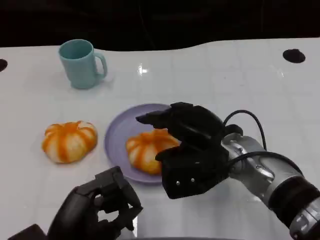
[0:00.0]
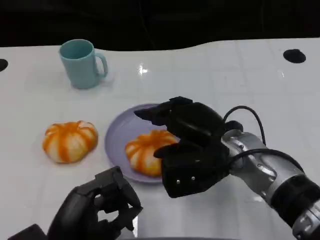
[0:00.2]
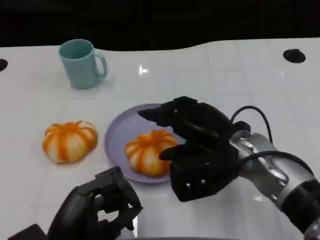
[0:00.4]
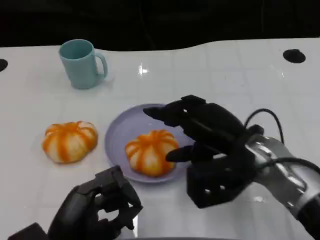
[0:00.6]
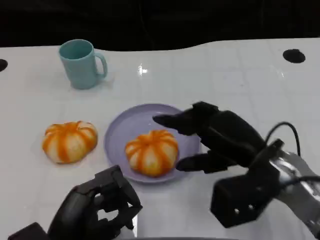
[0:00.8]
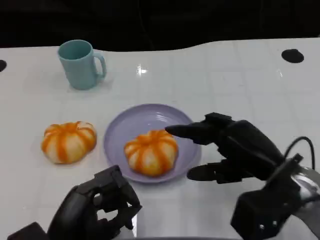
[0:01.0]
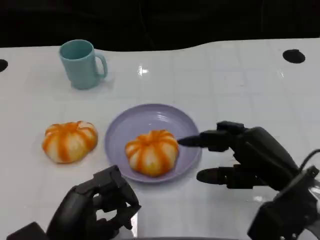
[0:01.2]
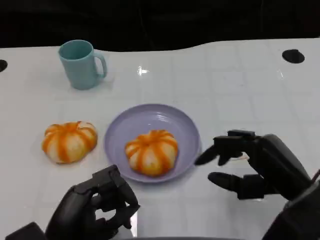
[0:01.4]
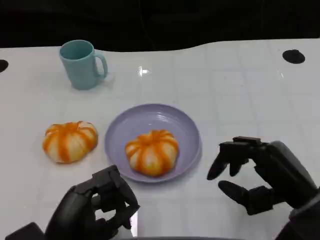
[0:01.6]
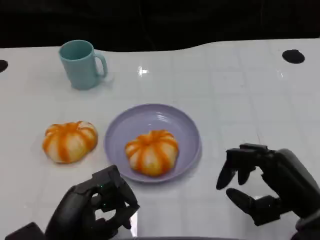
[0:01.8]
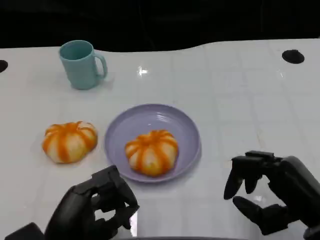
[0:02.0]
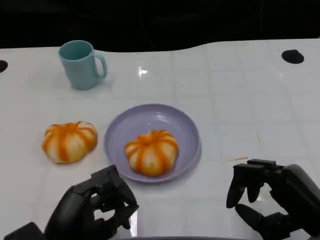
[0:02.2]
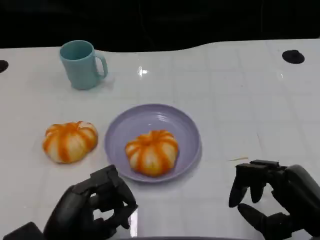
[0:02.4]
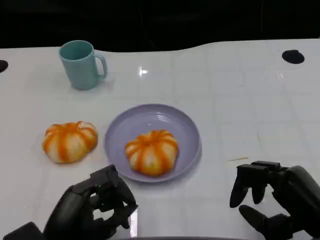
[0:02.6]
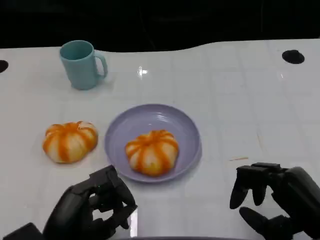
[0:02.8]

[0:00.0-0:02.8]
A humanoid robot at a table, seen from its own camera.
Task of the whole recording: Grasp the bread from the table and place it into the plate.
0:00.0 to 0:01.4: The right hand goes roughly 15 cm to the right and backward.
0:01.4 to 0:02.8: The right hand ends up about 5 cm from where it was.

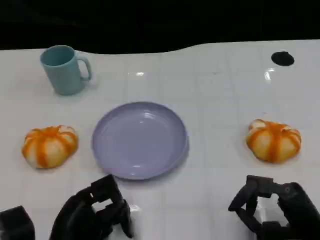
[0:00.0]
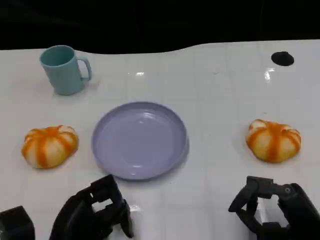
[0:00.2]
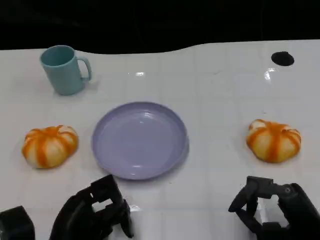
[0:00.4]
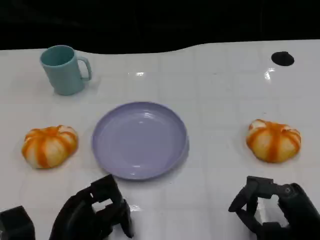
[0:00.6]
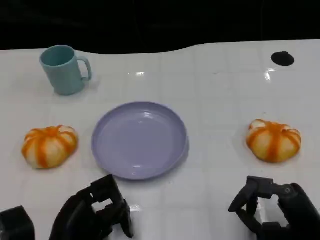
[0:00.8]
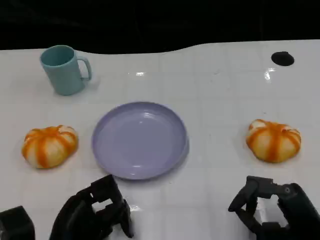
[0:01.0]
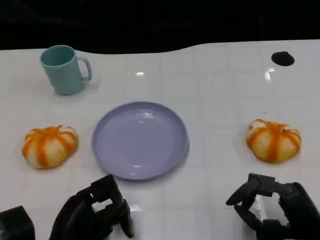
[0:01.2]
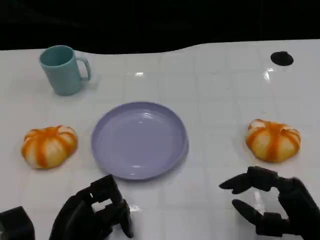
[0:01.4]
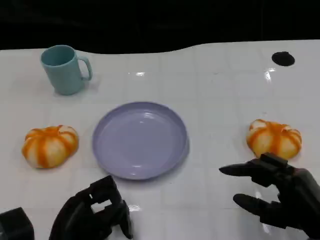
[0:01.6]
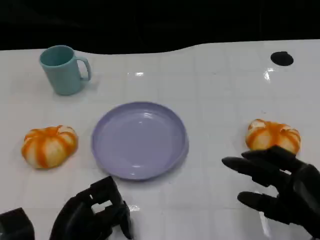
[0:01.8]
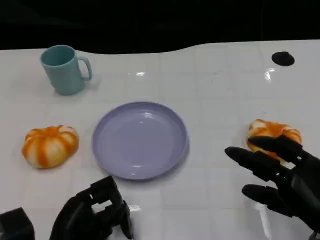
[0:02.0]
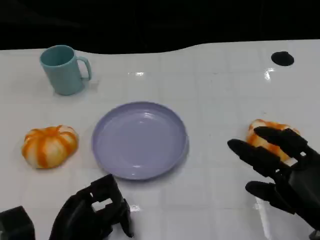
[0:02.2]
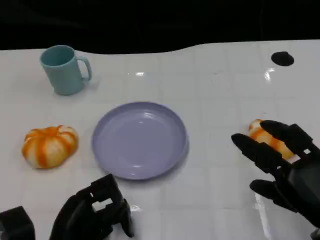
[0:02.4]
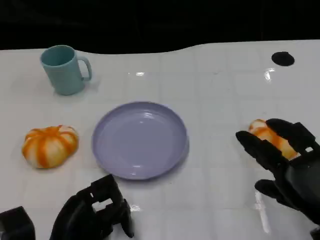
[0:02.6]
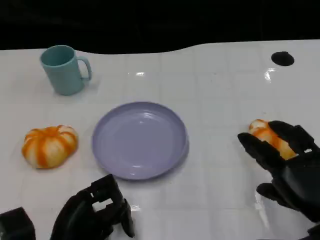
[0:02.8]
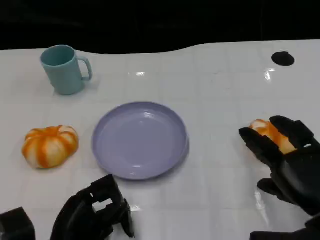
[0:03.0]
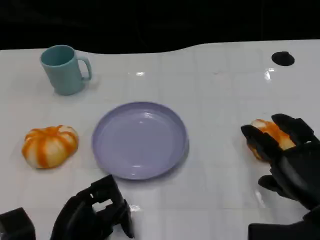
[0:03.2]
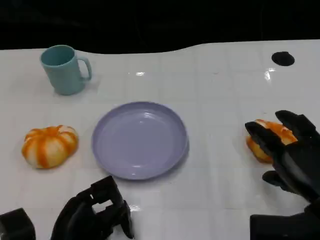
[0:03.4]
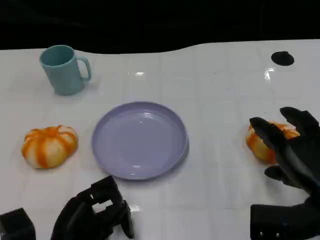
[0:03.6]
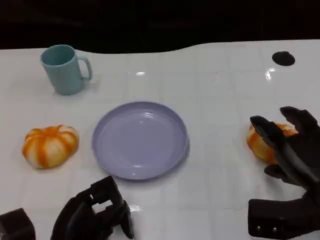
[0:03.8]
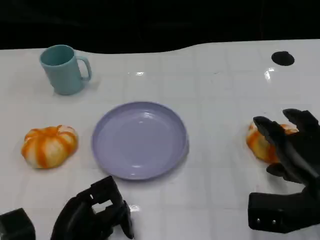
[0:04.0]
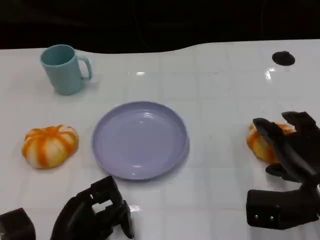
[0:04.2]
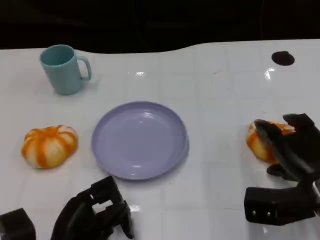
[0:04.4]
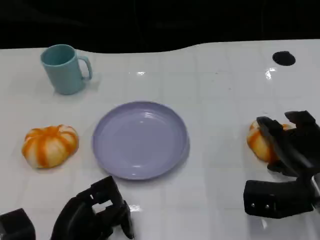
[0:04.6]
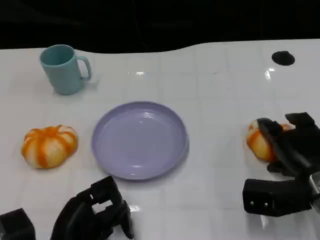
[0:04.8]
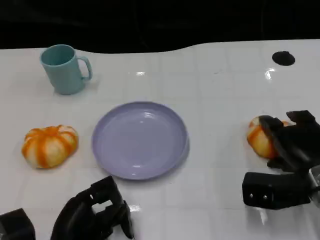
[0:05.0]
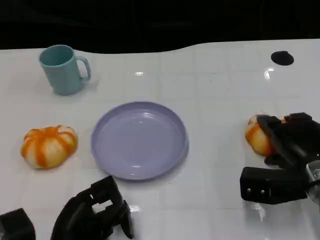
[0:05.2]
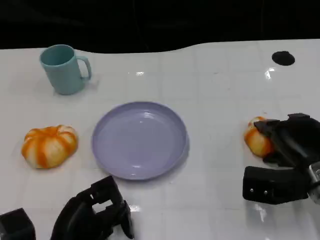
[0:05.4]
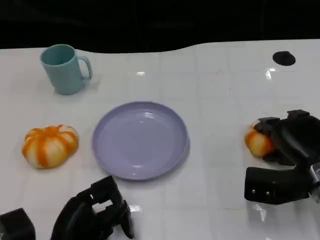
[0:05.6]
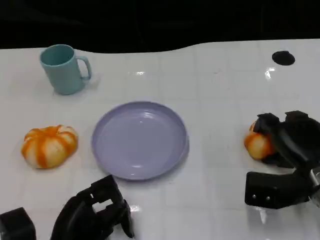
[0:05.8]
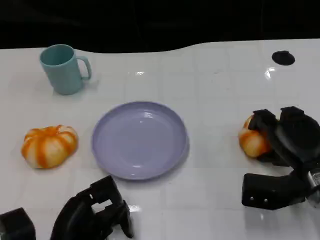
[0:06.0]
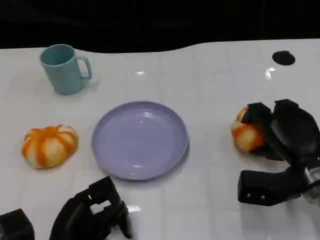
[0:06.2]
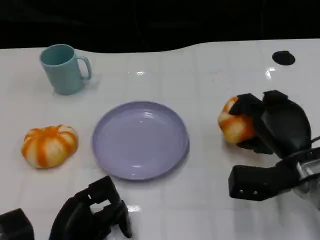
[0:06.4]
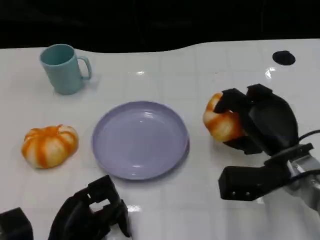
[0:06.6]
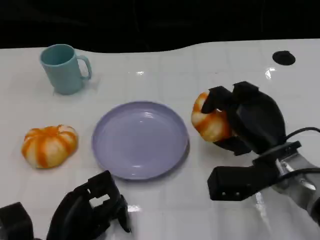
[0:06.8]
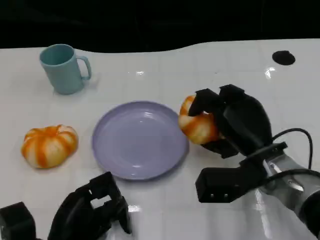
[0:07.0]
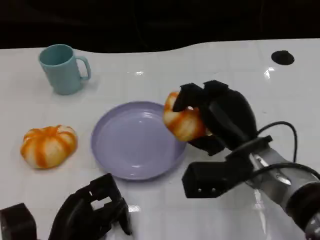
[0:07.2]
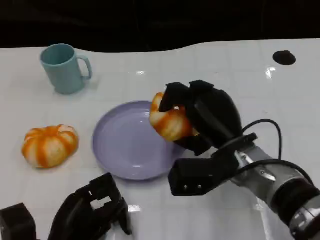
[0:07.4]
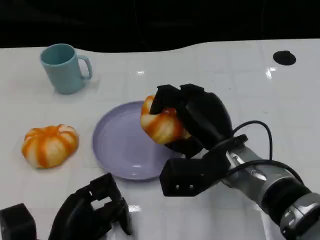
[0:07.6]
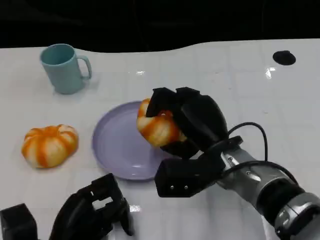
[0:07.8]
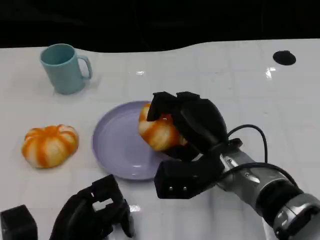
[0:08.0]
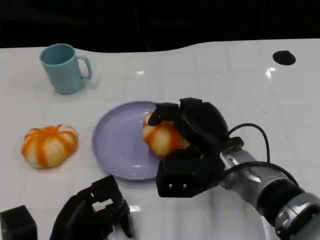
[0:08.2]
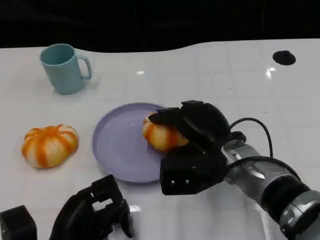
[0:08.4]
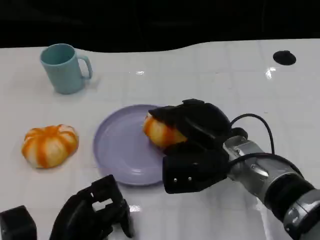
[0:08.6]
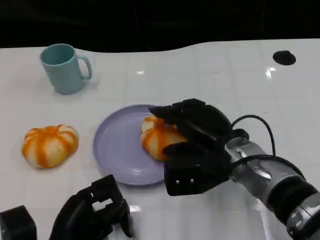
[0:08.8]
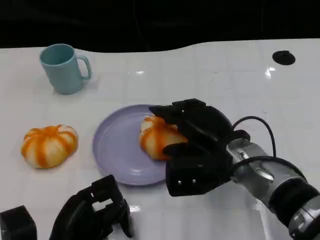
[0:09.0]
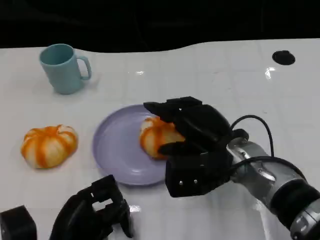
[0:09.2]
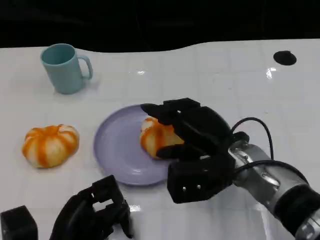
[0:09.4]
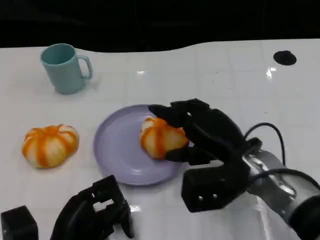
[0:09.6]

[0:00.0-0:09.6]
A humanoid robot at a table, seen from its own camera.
Task of the whole recording: Grasp the bread from the table and place it into the plate.
0:03.2 to 0:04.8: The right hand travels forward by approximately 5 cm.
0:06.4 to 0:08.0: The right hand shifts approximately 10 cm to the left.
0:08.0 to 0:09.6: The hands move only a little.

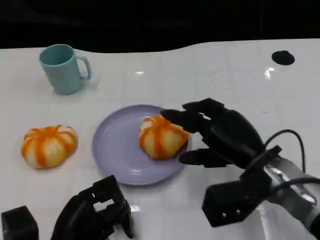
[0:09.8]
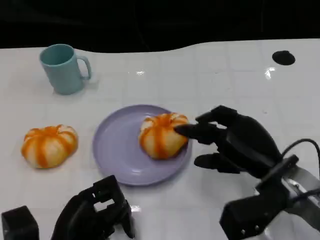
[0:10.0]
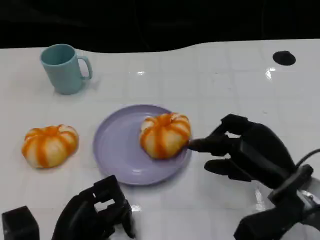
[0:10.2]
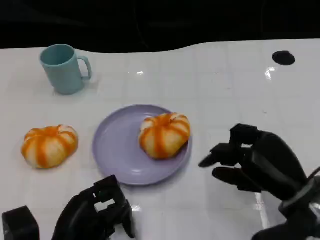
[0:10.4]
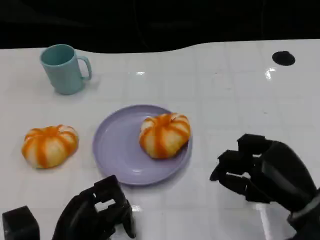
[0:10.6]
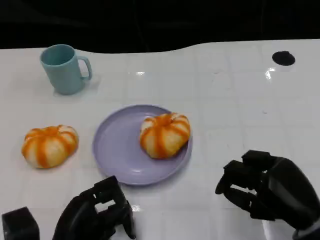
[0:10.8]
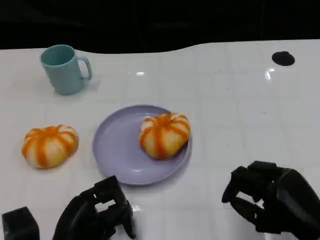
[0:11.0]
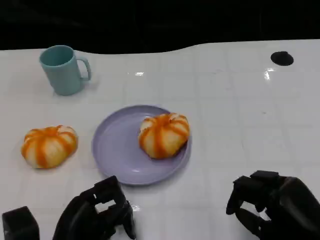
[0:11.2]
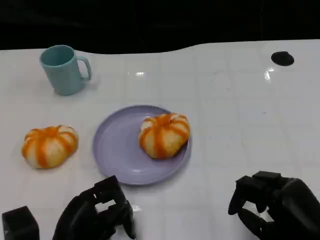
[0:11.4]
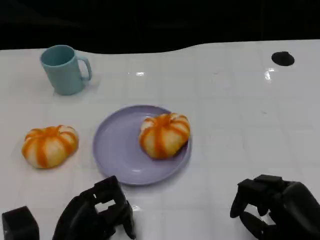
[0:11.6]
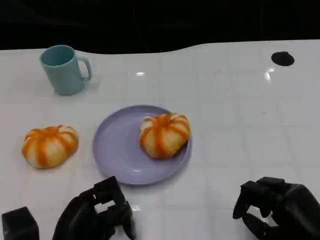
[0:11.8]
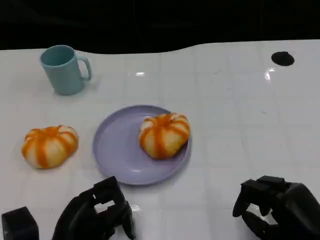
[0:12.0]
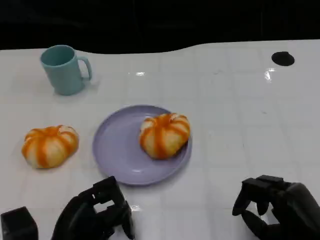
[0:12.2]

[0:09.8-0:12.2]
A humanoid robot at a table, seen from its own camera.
Task of the whole recording: Grasp the bread from the table and place it into the plate.
0:09.8 to 0:11.0: The right hand is displaced backward and to the right by approximately 10 cm.
0:11.0 to 0:12.2: There are only small adjustments of the hands.

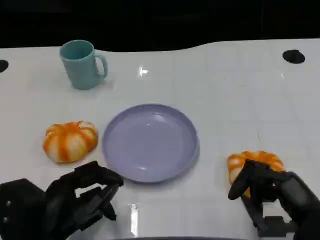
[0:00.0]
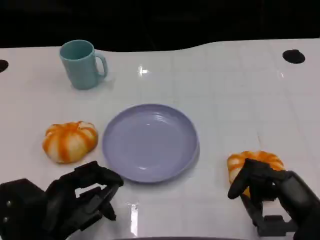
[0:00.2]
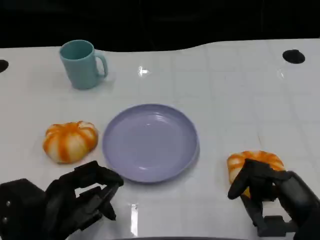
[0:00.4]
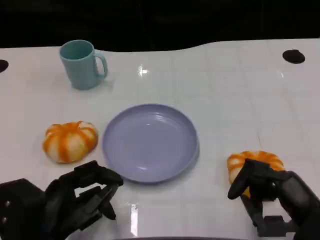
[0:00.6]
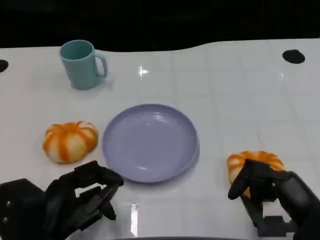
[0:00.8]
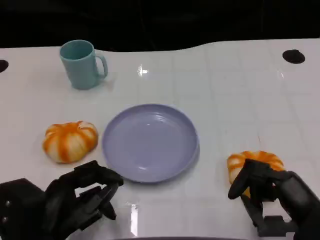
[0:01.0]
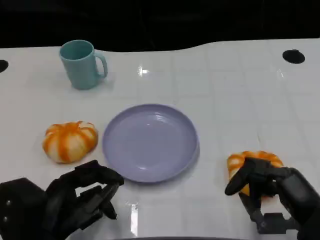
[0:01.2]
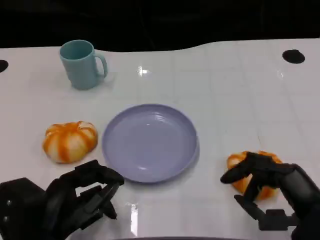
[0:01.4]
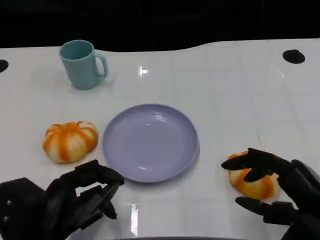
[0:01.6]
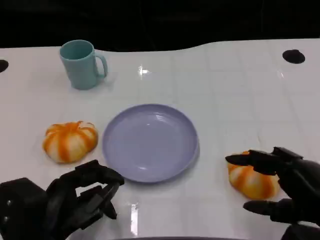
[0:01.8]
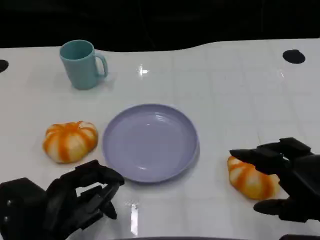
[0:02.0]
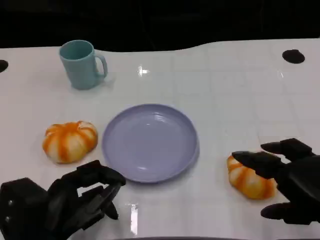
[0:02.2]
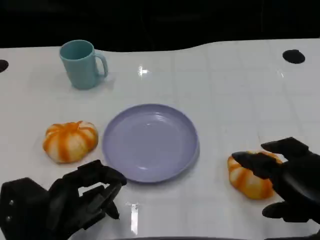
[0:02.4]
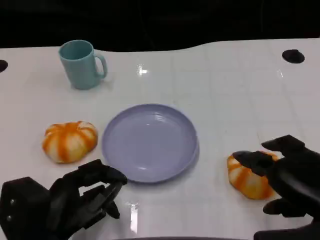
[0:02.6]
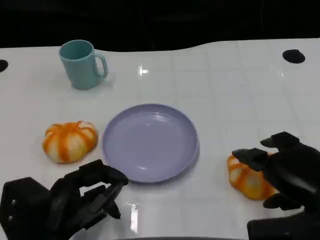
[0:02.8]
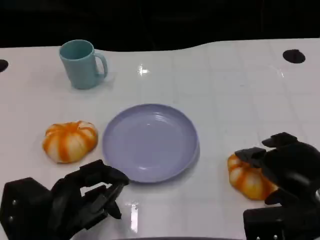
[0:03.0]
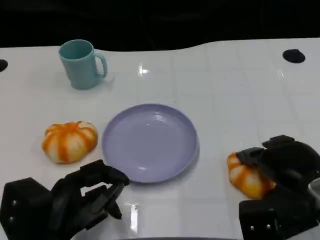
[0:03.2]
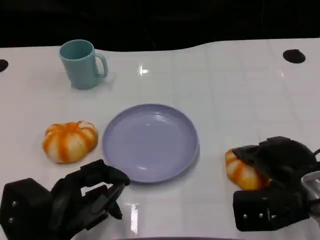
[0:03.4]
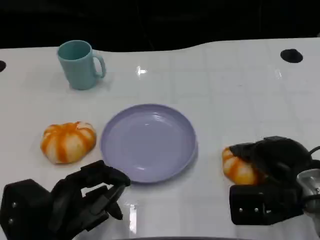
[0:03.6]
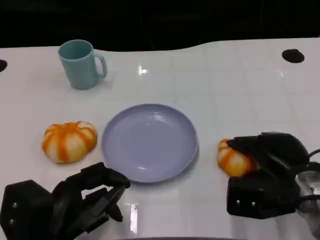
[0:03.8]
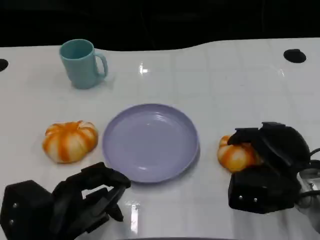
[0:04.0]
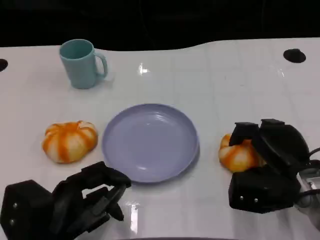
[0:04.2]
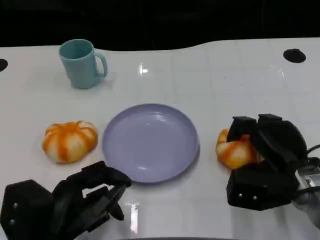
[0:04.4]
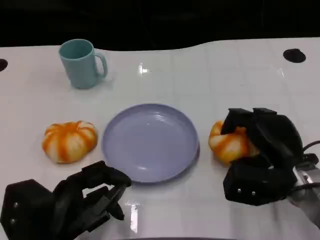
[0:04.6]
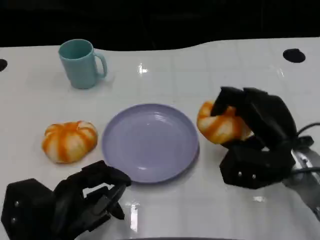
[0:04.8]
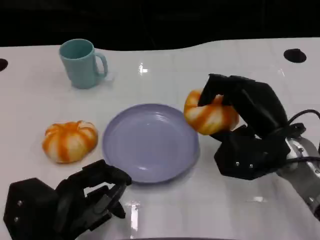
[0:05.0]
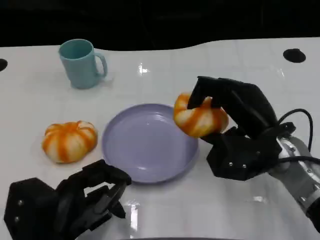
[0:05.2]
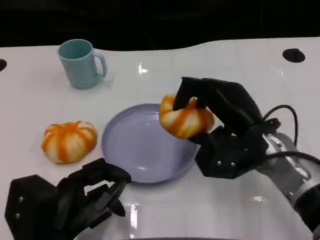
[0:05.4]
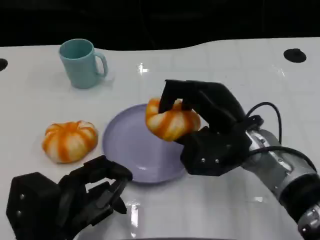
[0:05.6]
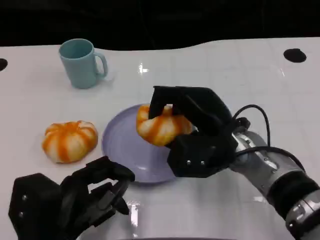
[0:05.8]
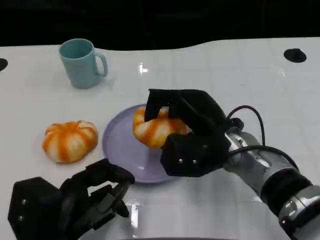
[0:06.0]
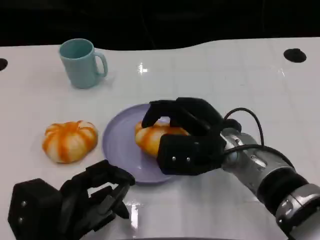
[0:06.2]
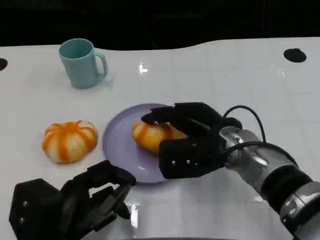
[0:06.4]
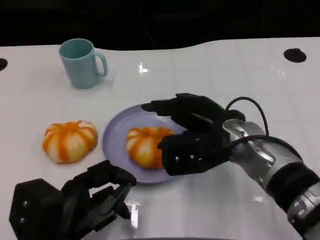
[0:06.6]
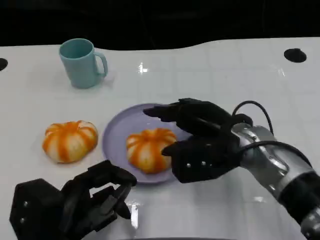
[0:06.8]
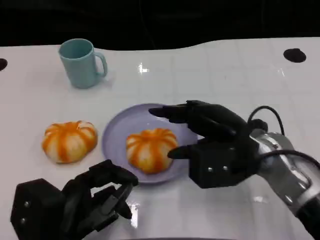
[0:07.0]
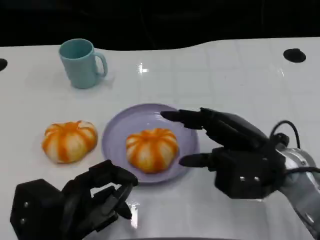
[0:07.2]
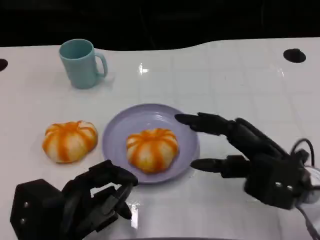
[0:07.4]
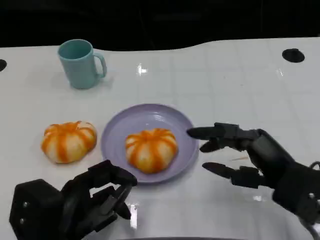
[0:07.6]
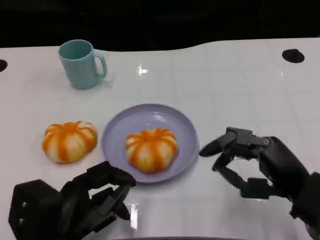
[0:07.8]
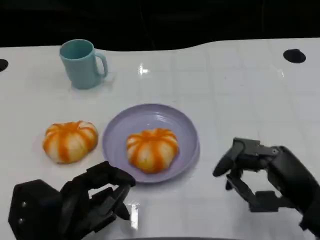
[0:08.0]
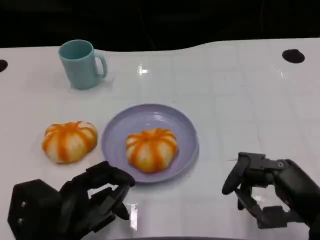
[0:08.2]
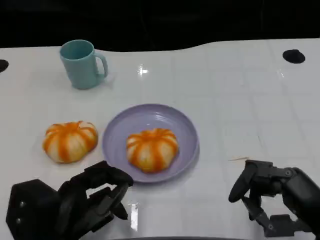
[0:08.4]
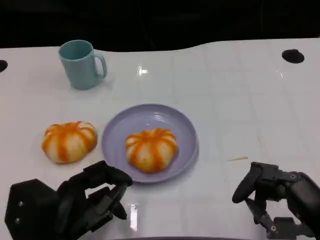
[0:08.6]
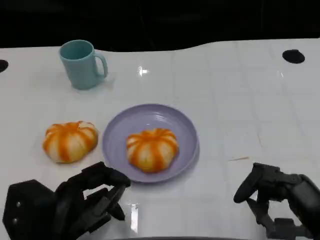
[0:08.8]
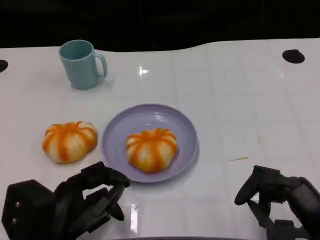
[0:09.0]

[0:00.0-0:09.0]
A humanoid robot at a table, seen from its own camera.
Task of the whole recording: Grasp the bread from the table and place it into the plate.
0:01.6 to 0:03.0: The right hand is displaced forward by roughly 5 cm.
0:03.0 to 0:04.4: The right hand shifts about 5 cm forward.
0:04.4 to 0:06.0: The right hand heads to the left, covering approximately 10 cm.
0:06.0 to 0:07.6: The right hand moves to the right and backward, about 15 cm.
0:07.6 to 0:09.0: The right hand is displaced backward by about 5 cm.
